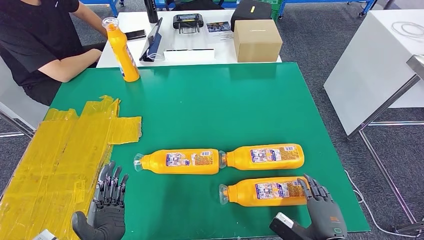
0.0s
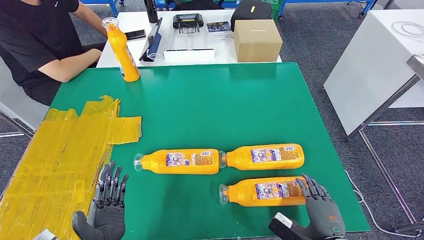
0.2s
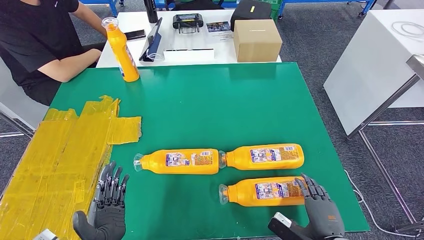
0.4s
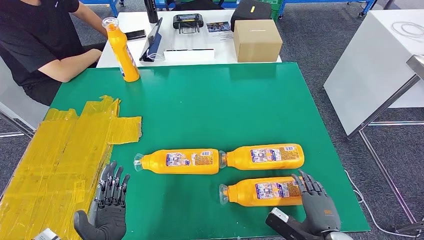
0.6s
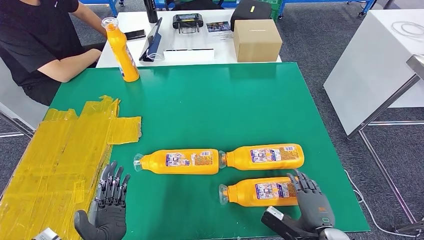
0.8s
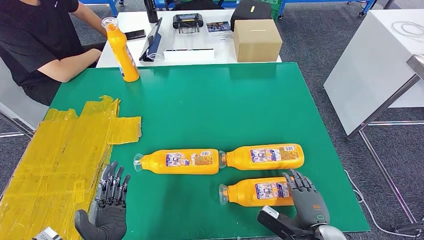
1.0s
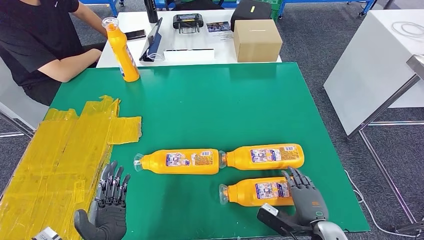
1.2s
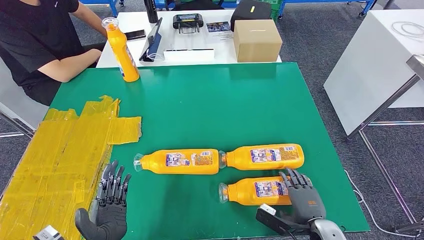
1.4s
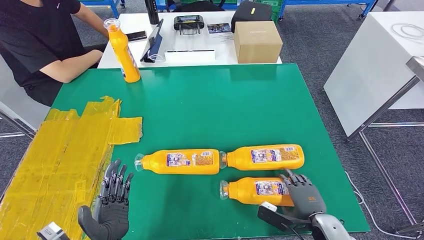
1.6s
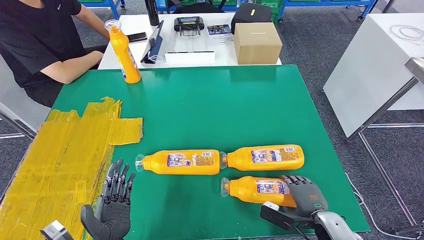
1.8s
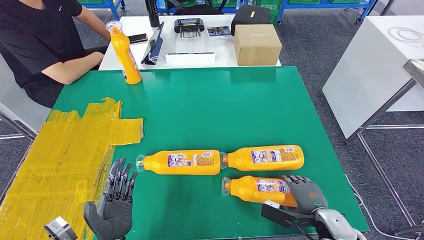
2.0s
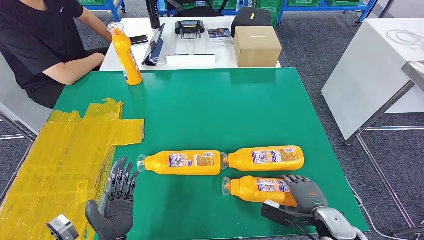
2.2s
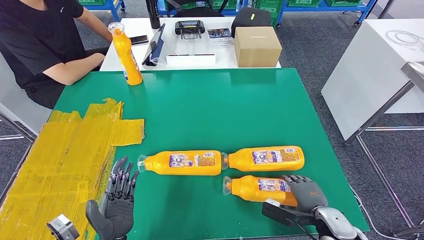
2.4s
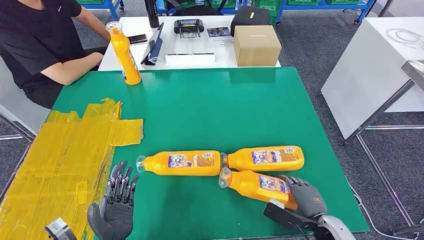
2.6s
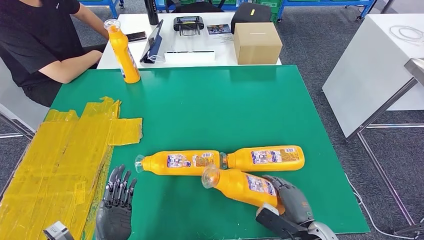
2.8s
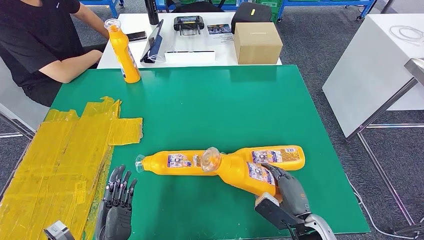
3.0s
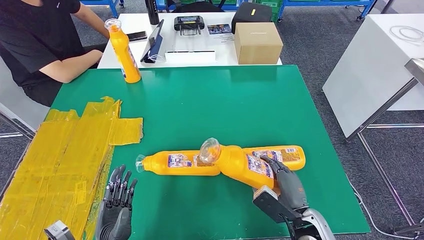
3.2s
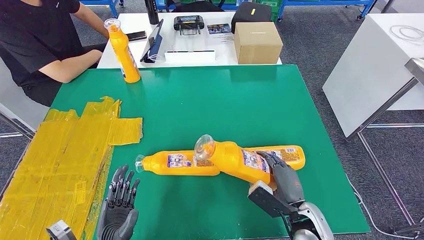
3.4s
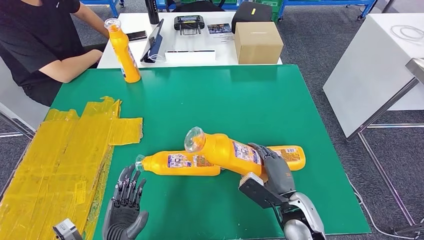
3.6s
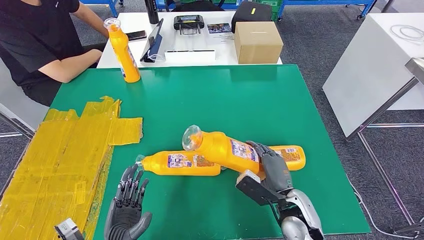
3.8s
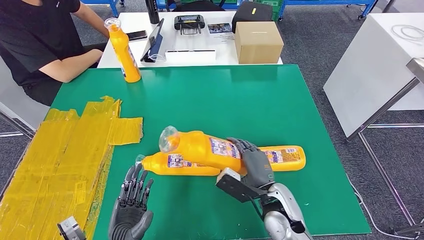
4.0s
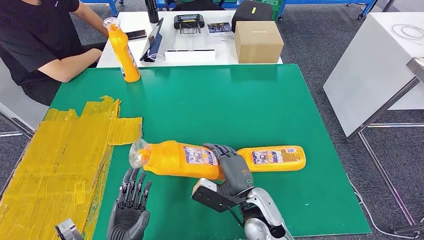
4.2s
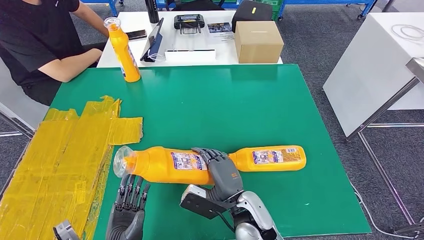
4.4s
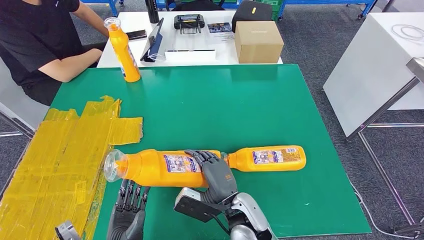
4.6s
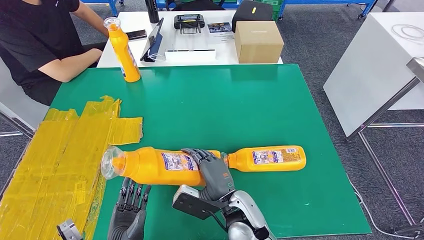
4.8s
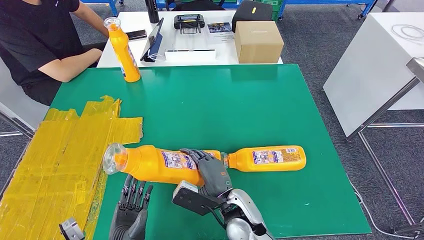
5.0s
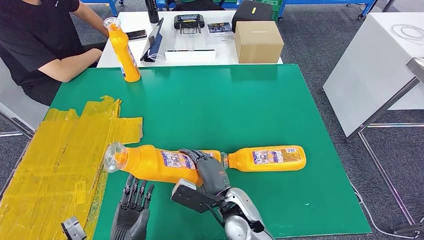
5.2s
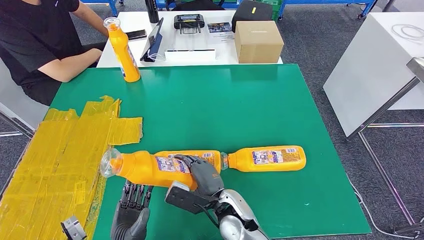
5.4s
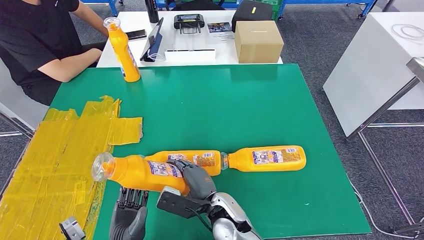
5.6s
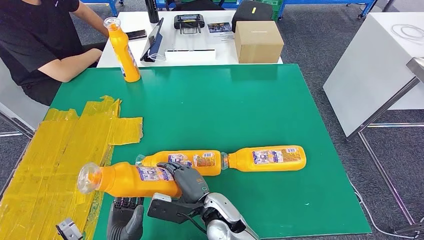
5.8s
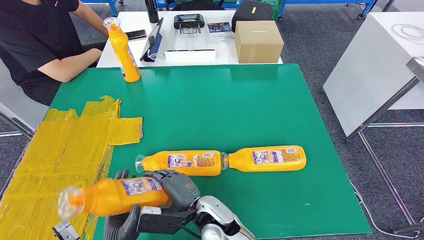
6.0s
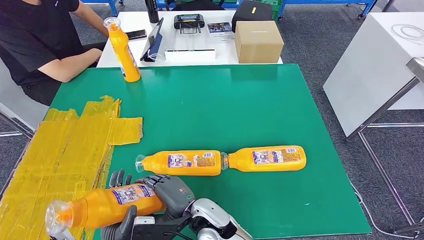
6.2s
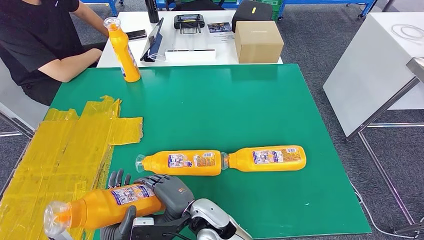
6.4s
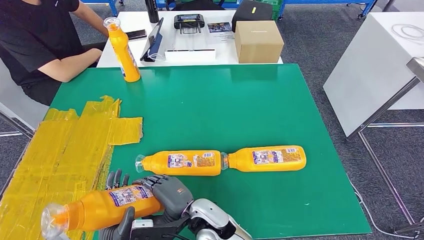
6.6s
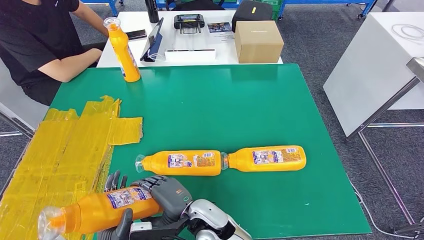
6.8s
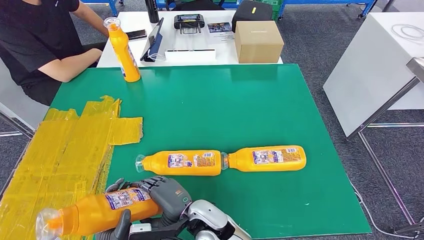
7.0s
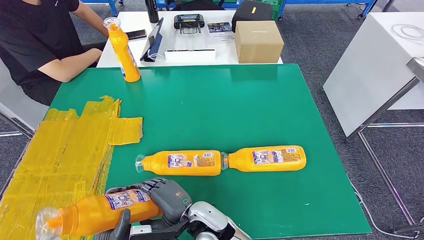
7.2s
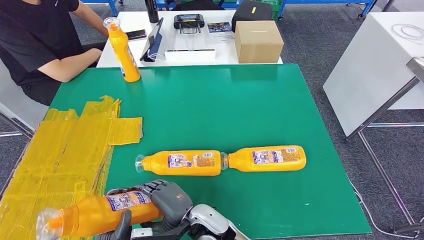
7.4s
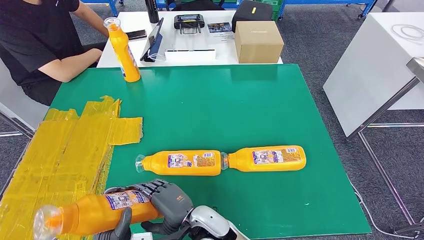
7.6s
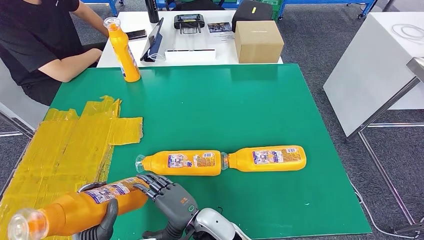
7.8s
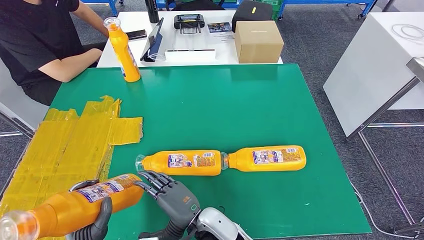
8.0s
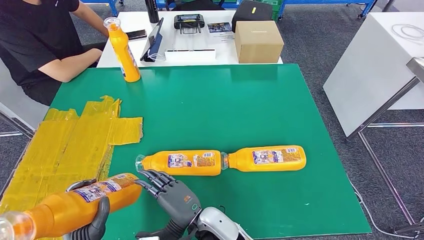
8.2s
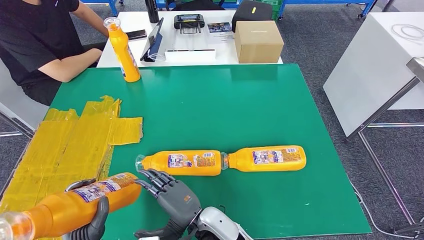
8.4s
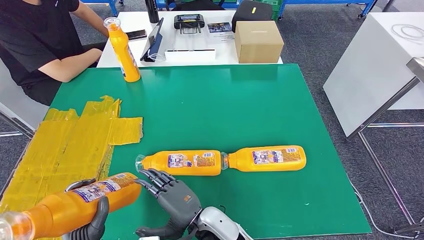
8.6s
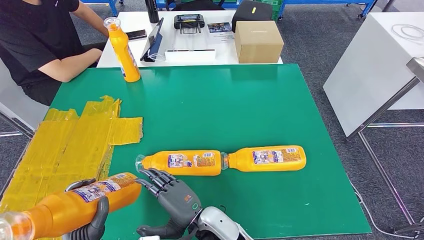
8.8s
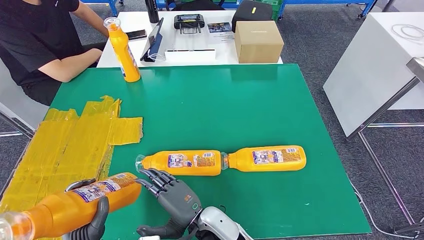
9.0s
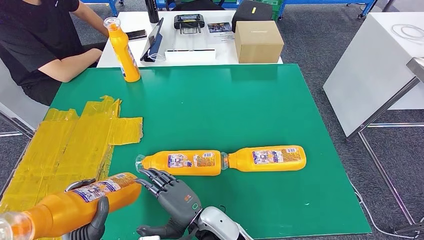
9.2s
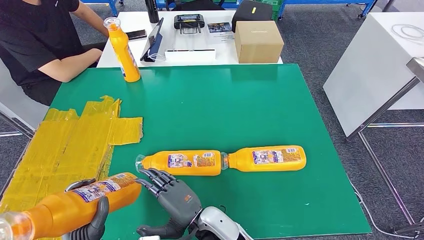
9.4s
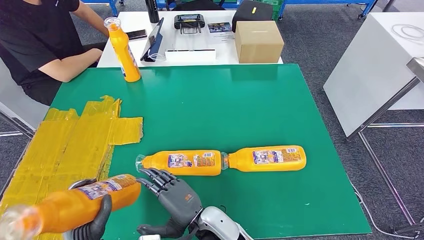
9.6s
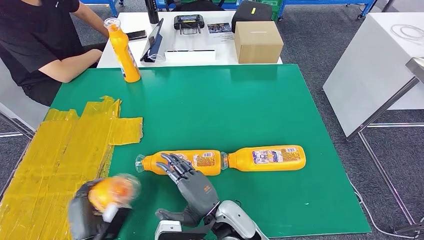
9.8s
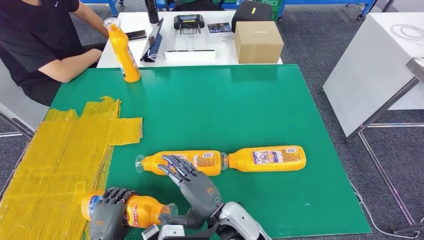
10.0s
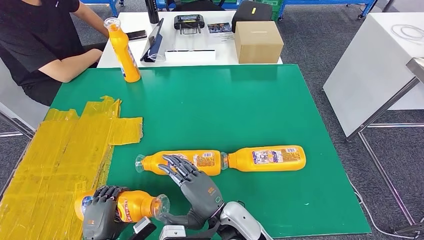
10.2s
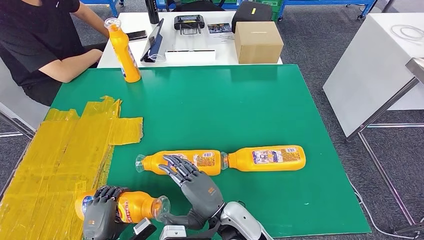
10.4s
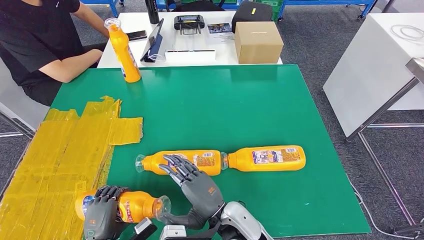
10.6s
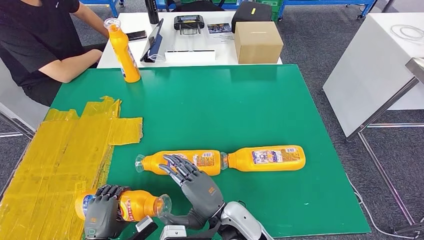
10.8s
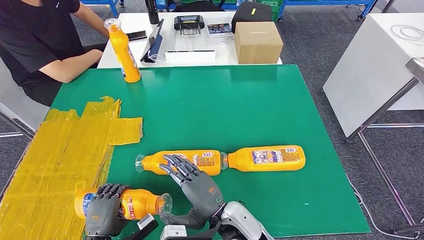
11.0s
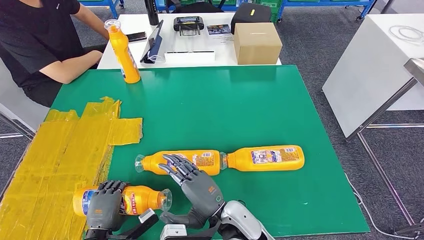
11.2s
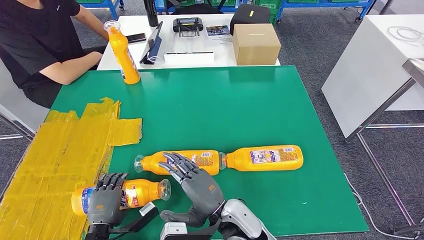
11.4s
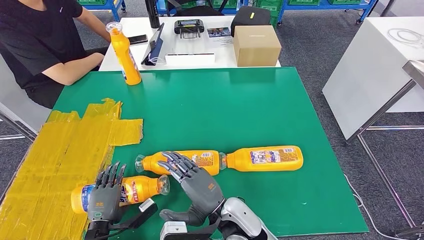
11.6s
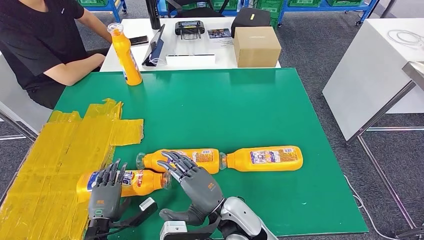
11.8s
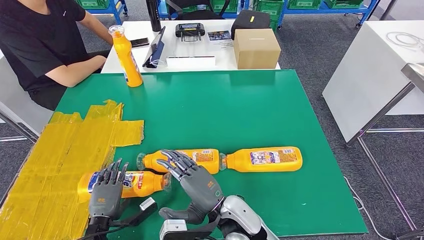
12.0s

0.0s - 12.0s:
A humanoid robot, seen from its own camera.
Step, 0.2s - 5.4s: Pick up the fast-moving consumer goods bottle from the table.
0.0s - 1.6s: The right hand changes place by roughly 5 cm.
1.6s - 3.0s: The right hand ends up about 5 cm from where it was.
3.0s - 4.4s: The right hand goes approximately 15 cm to the left.
4.4s - 6.0s: The right hand heads to the left, covering roughly 10 cm.
6.0s - 7.6s: The hands make only small movements.
9.0s - 10.4s: The left hand shifts roughly 5 cm downward. The right hand moves some 5 cm.

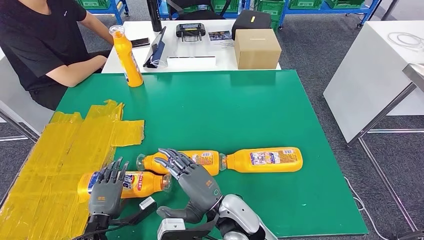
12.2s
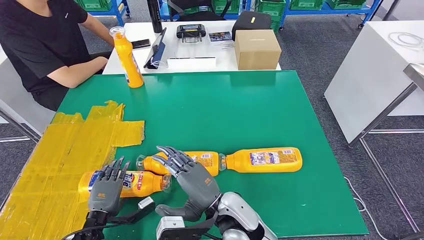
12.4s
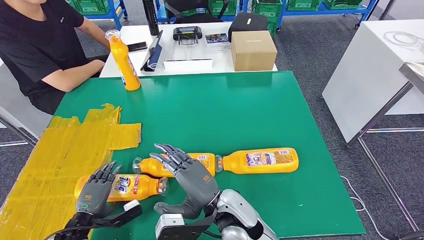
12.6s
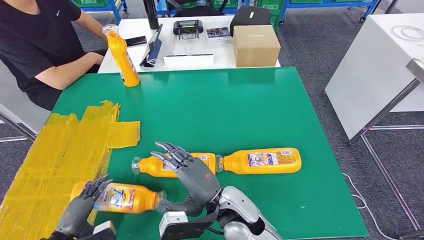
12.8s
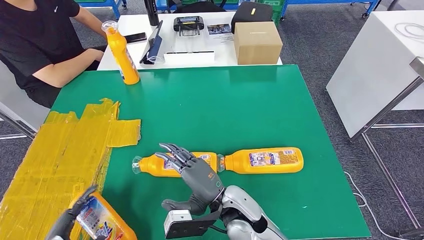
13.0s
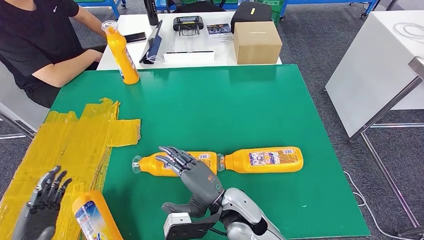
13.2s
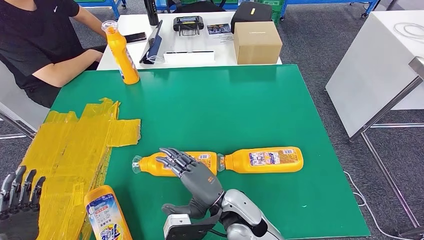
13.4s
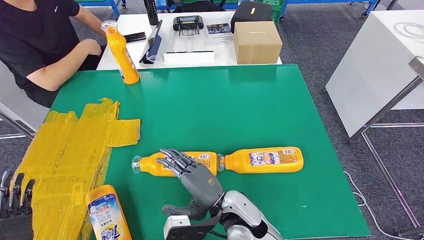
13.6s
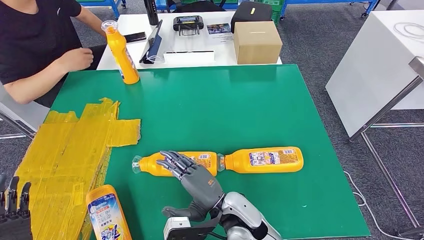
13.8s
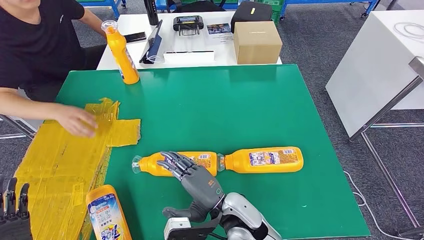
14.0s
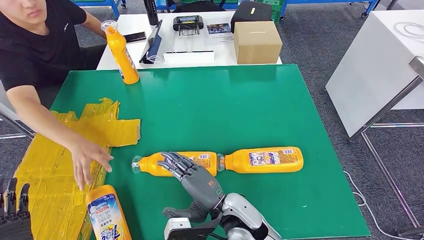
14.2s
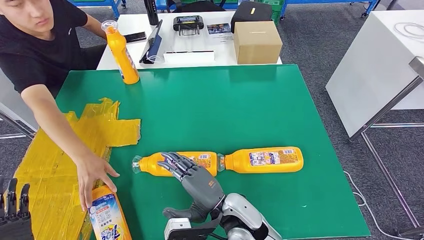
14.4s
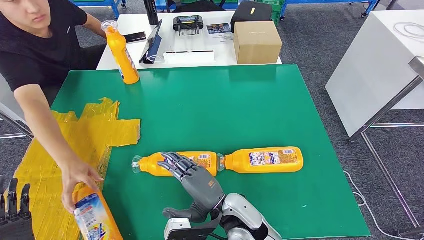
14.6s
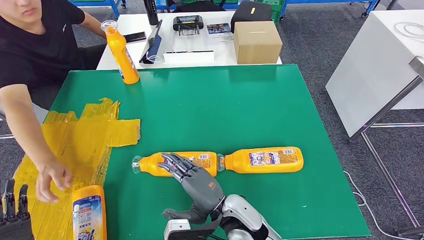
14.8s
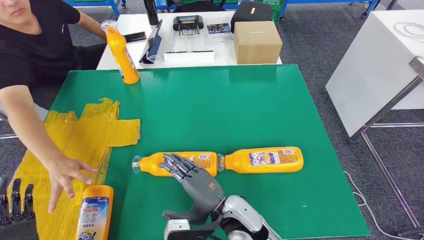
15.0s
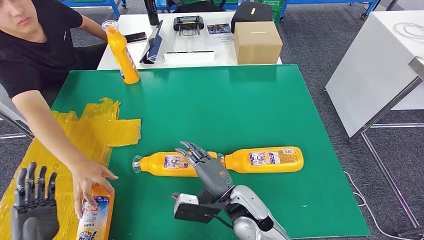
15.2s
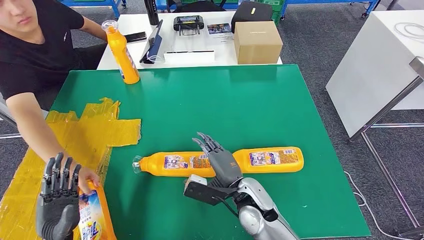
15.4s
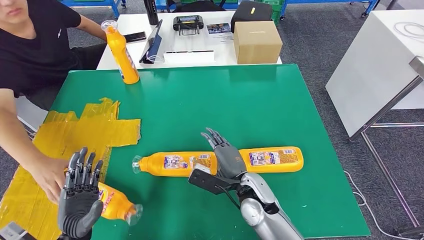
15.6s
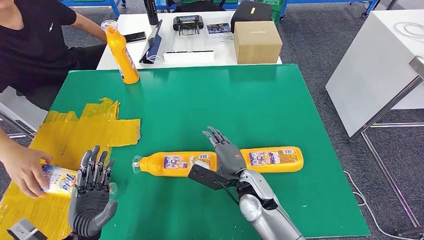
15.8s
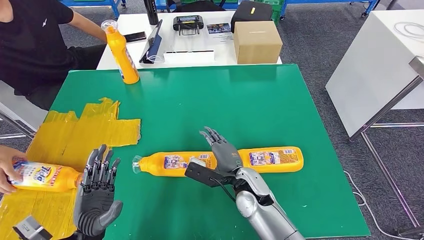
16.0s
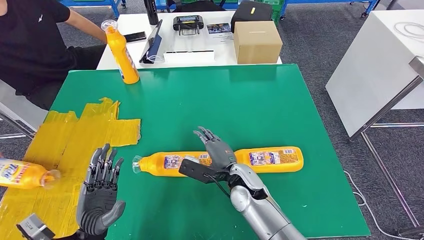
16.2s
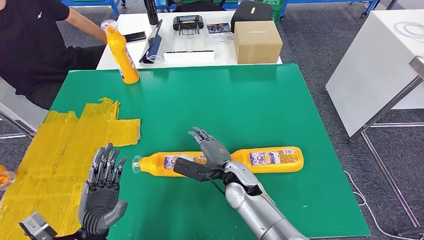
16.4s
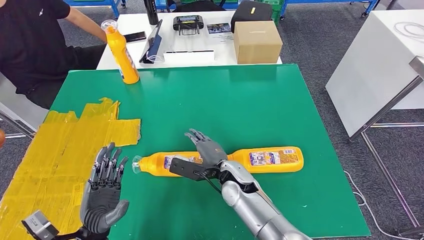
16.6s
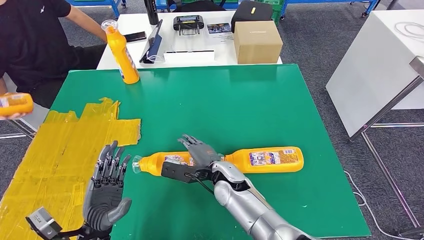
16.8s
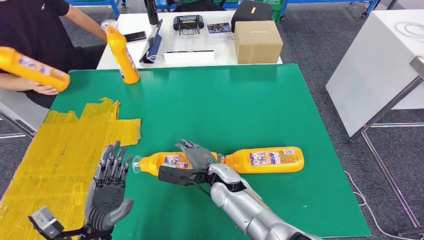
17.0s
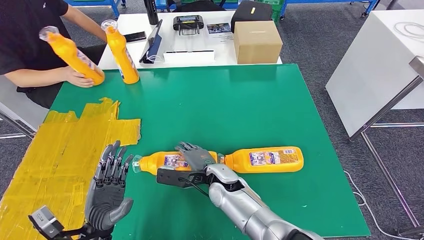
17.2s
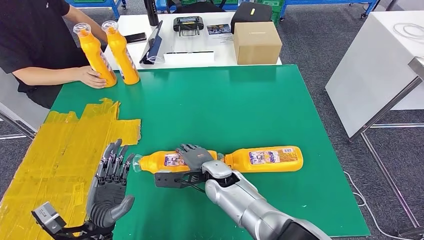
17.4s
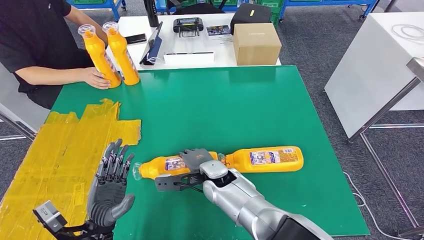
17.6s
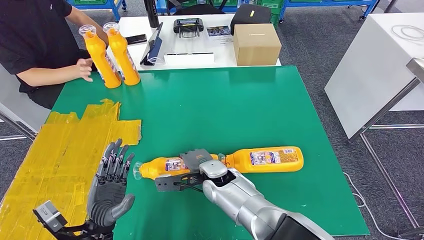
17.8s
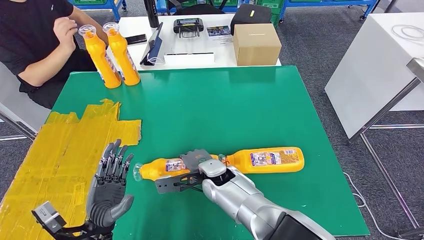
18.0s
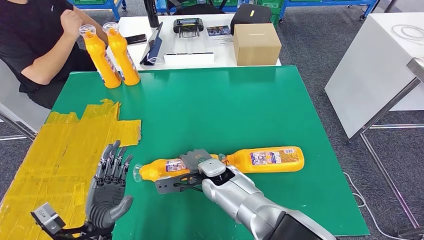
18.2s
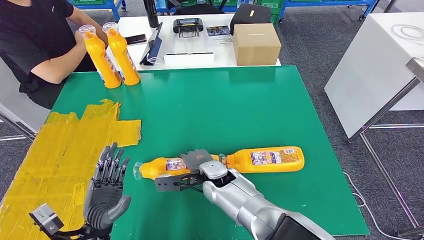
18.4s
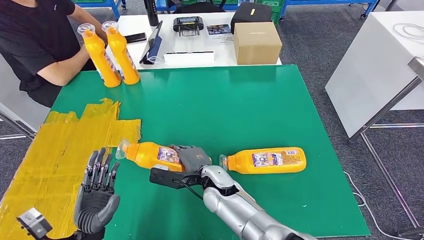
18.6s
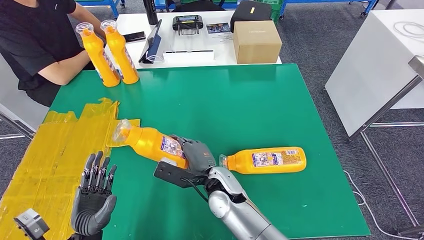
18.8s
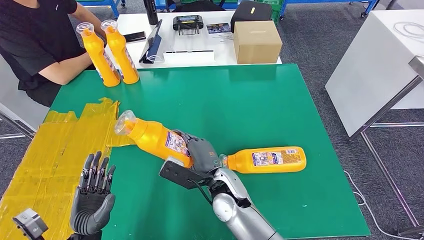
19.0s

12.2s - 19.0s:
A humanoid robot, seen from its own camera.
13.6s - 15.0s: The hands make only small movements.
15.0s - 16.2s: The right hand goes some 10 cm forward. The left hand is displaced to the right and forward by about 15 cm.
